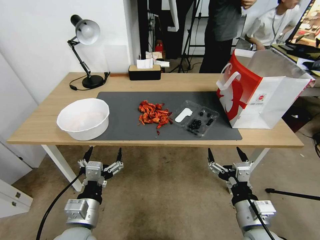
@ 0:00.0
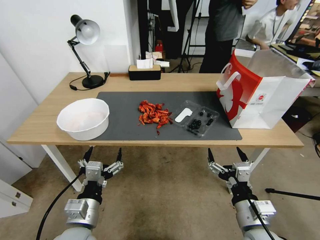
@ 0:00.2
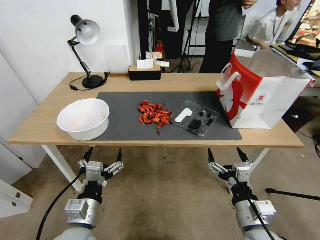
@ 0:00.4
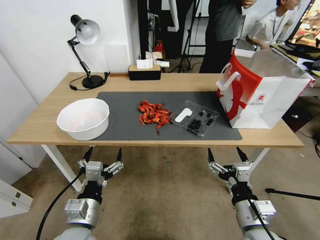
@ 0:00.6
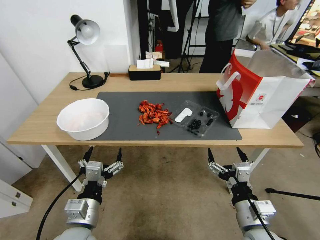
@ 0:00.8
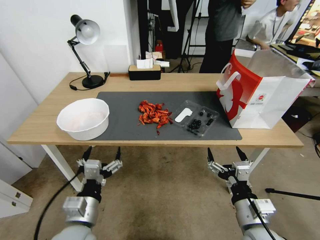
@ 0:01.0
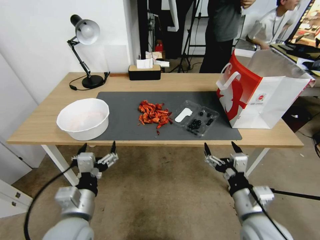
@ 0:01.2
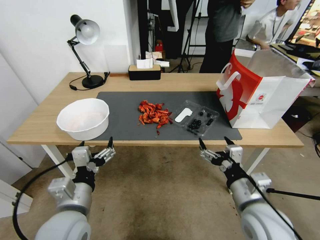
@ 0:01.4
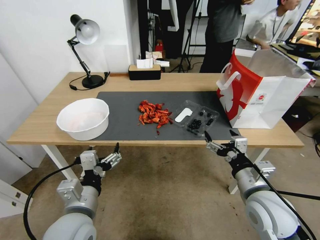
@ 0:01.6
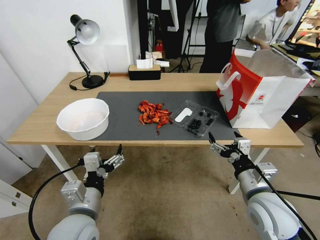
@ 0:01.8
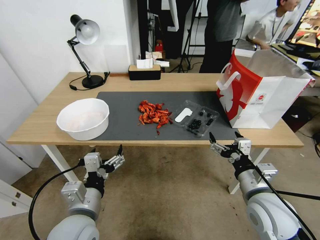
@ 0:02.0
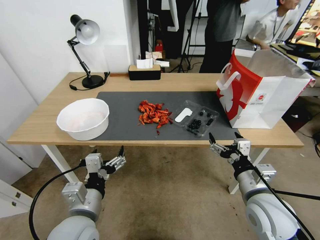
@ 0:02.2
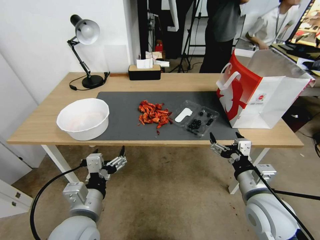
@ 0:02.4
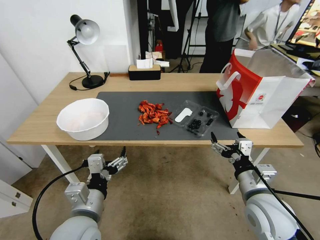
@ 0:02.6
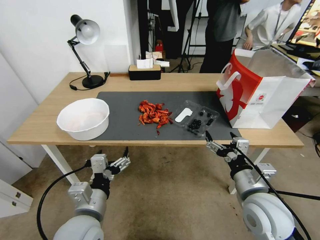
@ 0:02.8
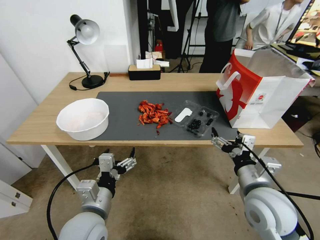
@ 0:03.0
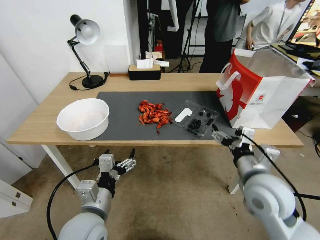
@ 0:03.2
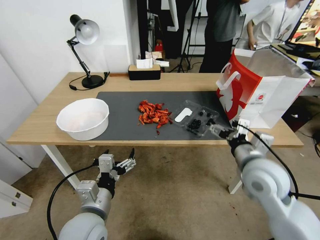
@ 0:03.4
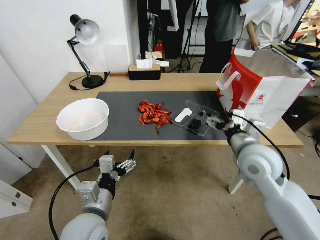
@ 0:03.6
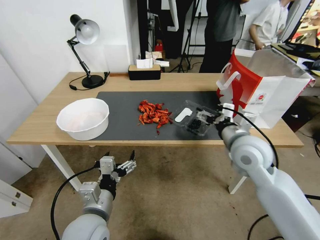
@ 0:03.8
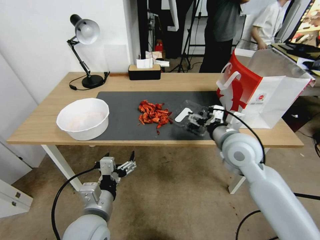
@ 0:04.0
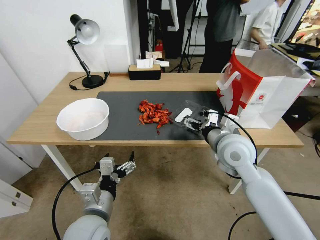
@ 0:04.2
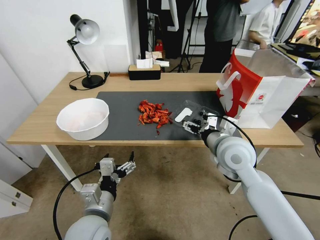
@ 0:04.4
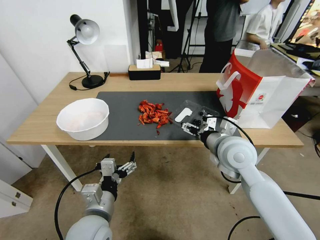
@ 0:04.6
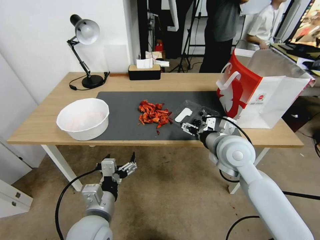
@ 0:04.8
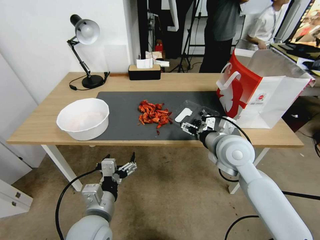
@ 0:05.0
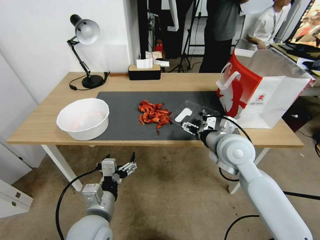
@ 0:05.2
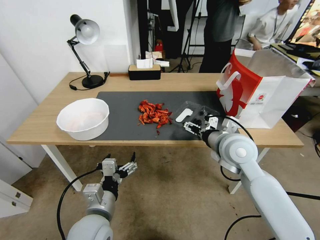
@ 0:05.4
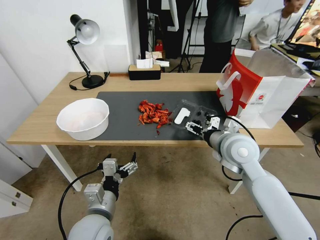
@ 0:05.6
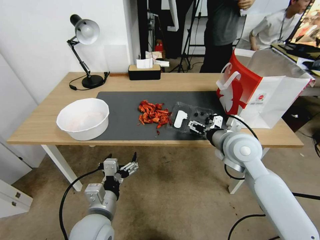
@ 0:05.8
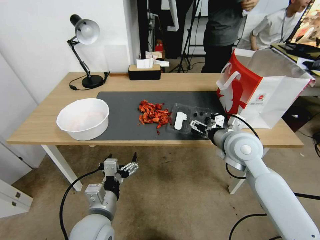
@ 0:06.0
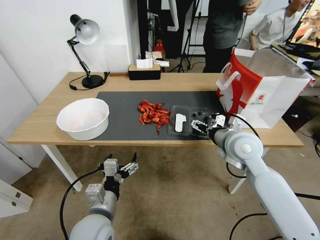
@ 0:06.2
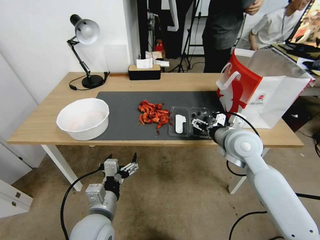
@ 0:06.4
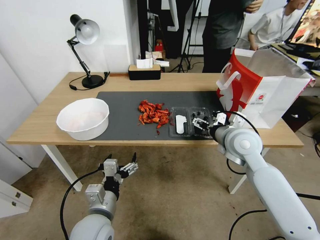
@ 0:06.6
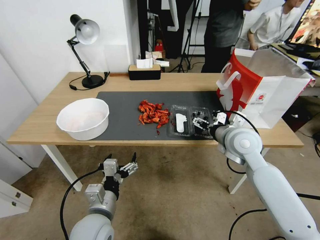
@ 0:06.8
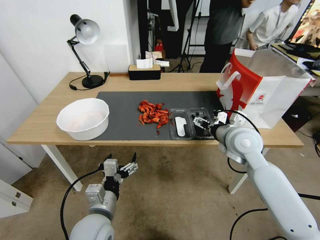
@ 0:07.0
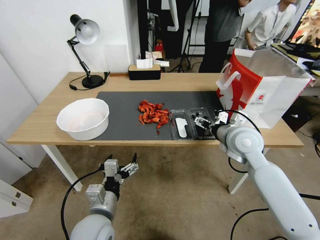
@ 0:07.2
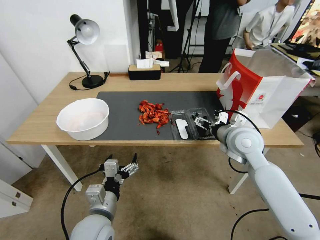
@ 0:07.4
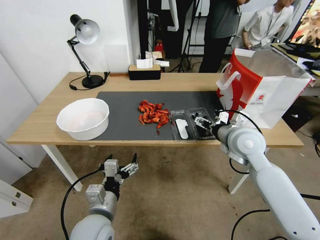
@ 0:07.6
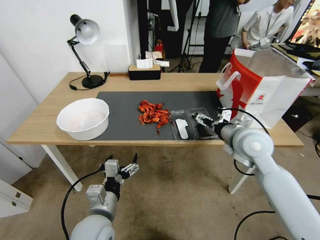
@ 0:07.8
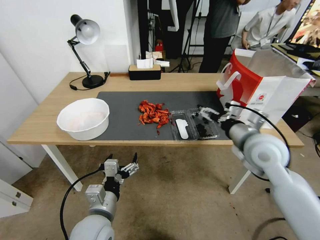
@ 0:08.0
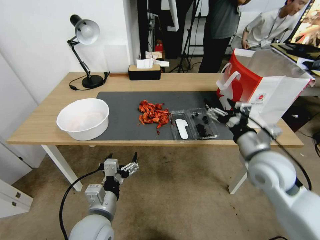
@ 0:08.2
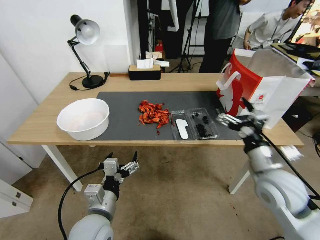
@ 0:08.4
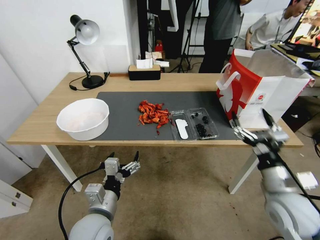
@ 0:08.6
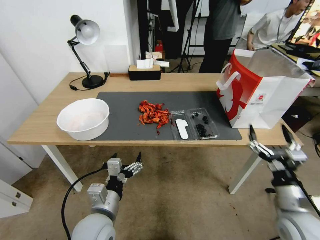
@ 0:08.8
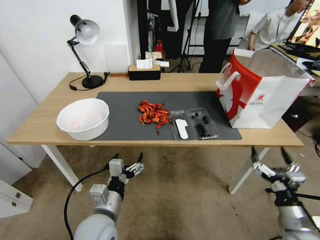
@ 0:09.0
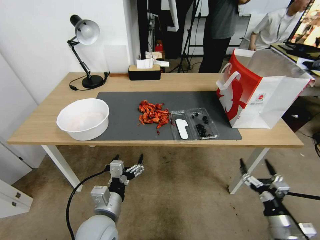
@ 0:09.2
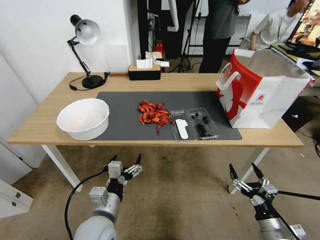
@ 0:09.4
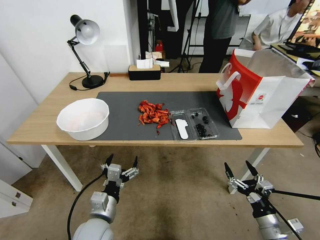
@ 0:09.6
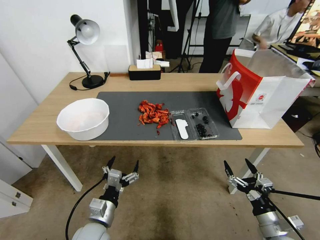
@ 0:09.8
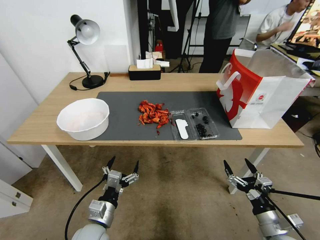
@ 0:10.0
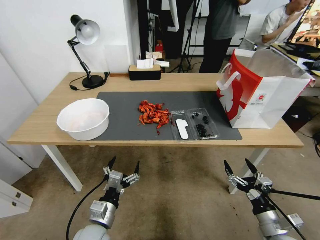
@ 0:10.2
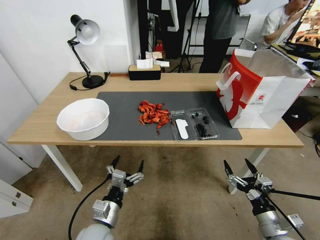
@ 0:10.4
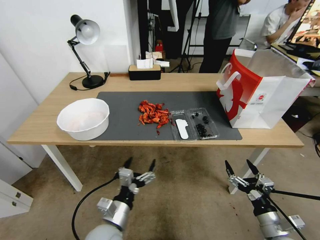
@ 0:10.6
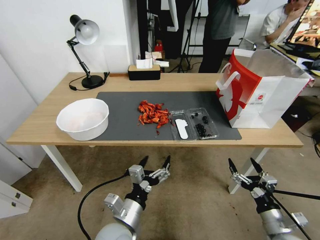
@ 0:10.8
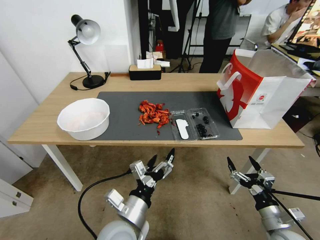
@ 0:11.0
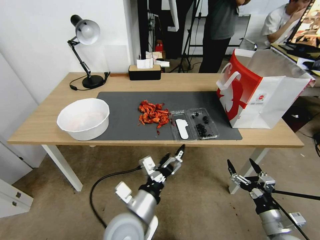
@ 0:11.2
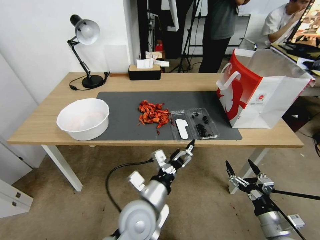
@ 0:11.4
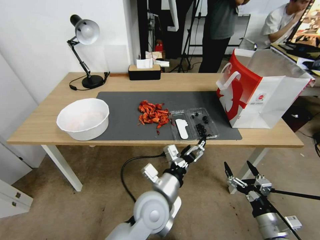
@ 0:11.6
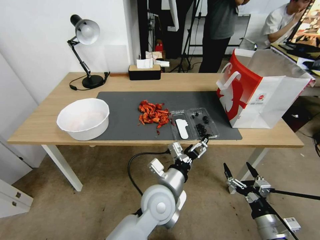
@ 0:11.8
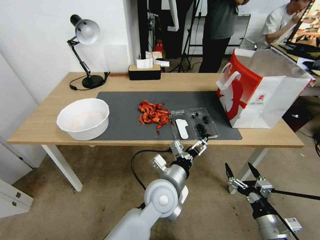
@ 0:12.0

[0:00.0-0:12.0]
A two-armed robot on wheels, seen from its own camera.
0:01.6 to 0:03.0: There are only small adjustments of the grippers.
0:03.0 to 0:04.4: The right gripper is displaced forward, to the left and upward by about 15 cm.
0:04.4 to 0:07.6: The grippers make only small movements.
0:07.6 to 0:09.0: The right gripper is displaced backward, downward and to the right by roughly 30 cm.
0:09.0 to 0:10.4: The right gripper changes place by about 5 cm; the left gripper moves downward, some 5 cm.
0:10.4 to 0:12.0: The left gripper shifts roughly 25 cm to the right, upward and forward.

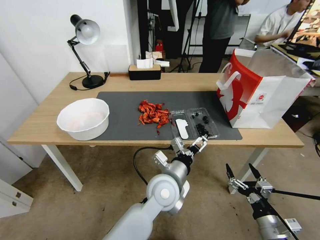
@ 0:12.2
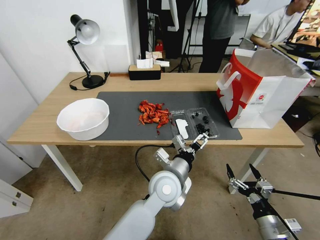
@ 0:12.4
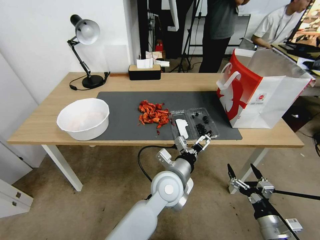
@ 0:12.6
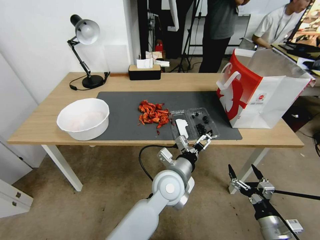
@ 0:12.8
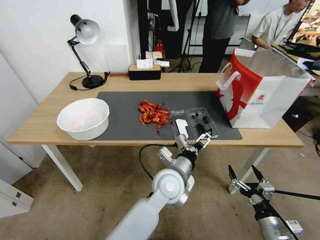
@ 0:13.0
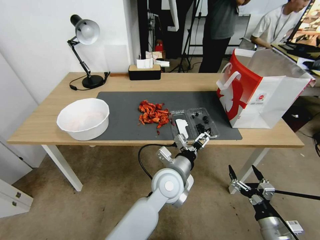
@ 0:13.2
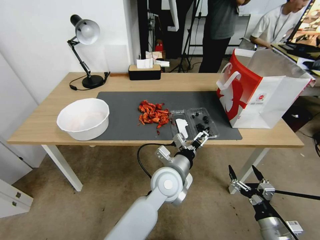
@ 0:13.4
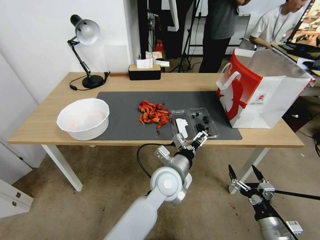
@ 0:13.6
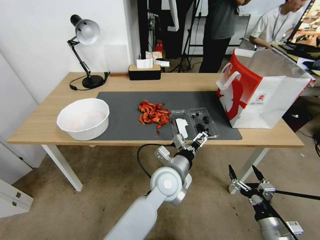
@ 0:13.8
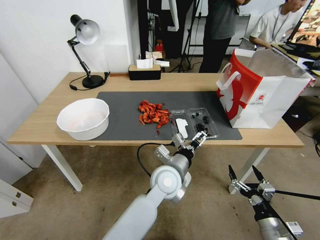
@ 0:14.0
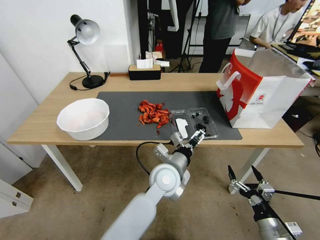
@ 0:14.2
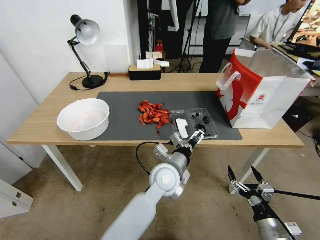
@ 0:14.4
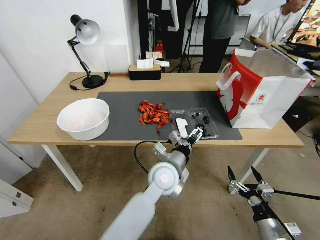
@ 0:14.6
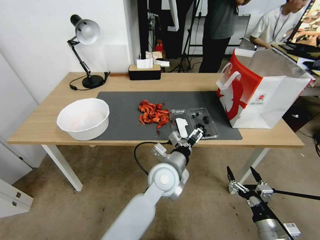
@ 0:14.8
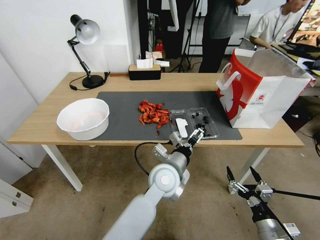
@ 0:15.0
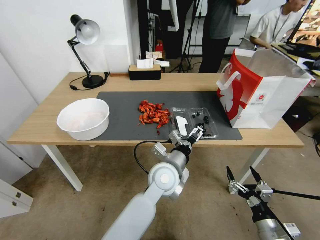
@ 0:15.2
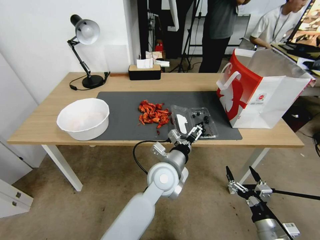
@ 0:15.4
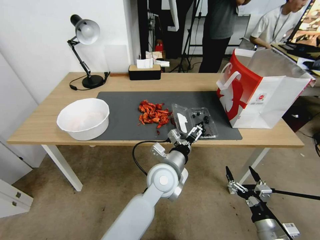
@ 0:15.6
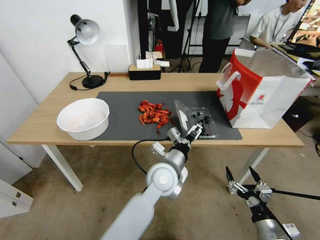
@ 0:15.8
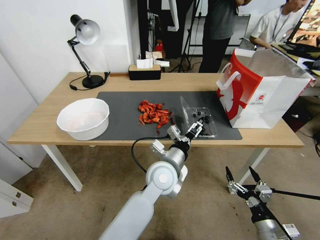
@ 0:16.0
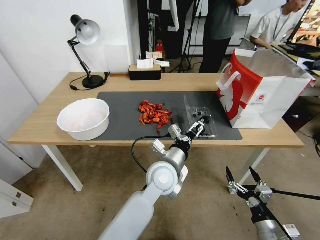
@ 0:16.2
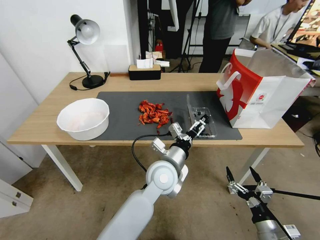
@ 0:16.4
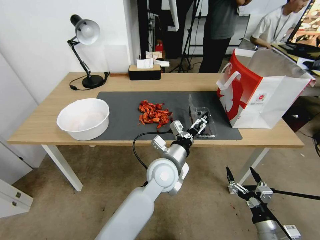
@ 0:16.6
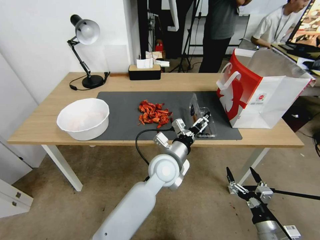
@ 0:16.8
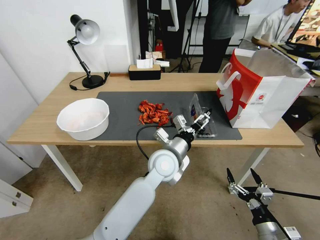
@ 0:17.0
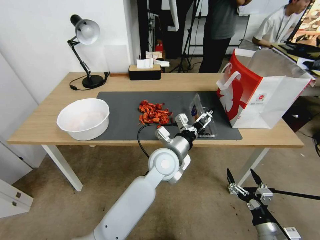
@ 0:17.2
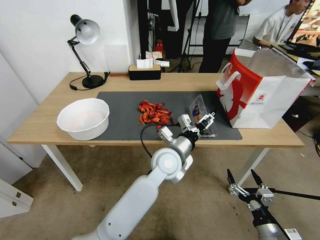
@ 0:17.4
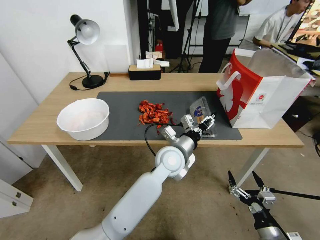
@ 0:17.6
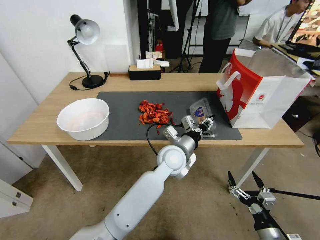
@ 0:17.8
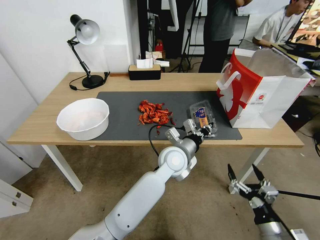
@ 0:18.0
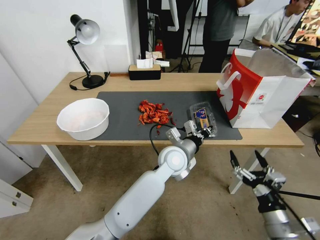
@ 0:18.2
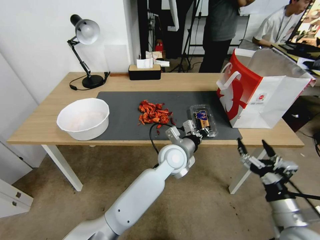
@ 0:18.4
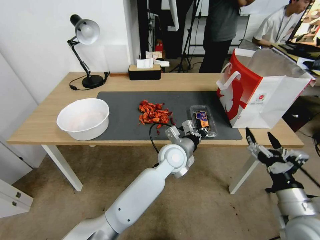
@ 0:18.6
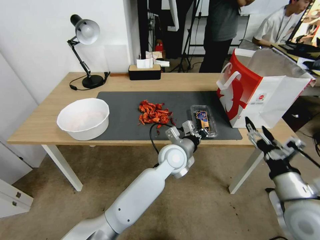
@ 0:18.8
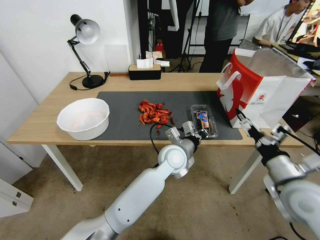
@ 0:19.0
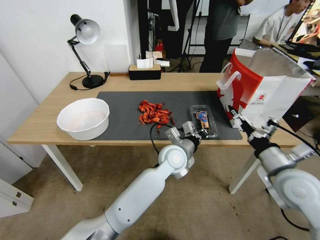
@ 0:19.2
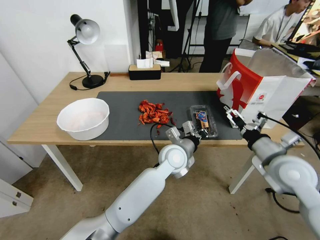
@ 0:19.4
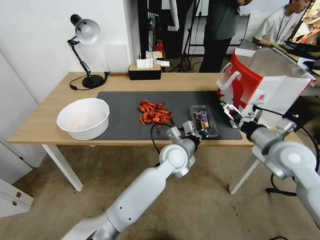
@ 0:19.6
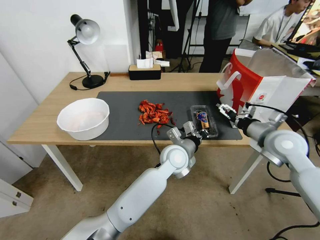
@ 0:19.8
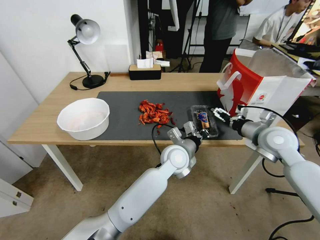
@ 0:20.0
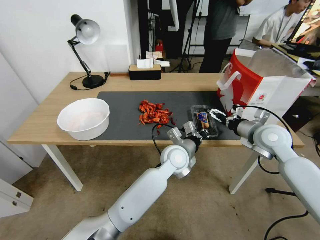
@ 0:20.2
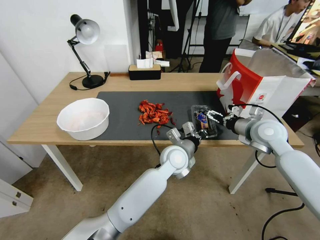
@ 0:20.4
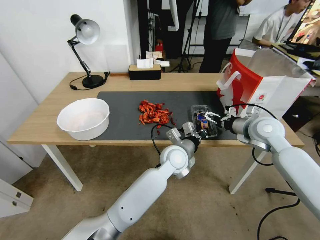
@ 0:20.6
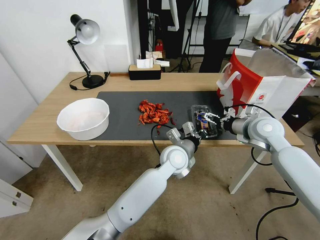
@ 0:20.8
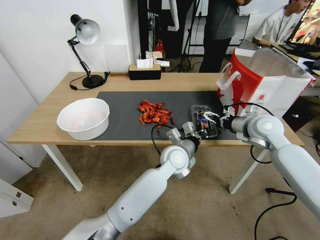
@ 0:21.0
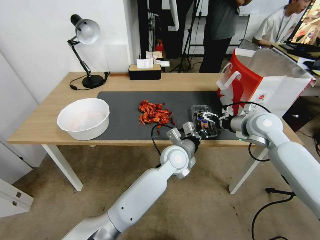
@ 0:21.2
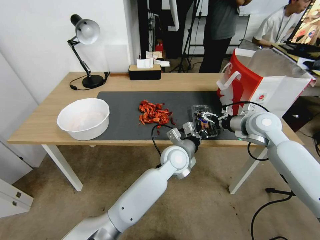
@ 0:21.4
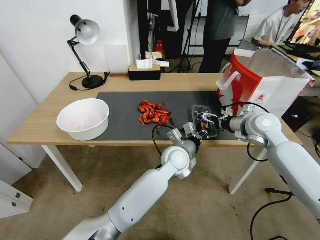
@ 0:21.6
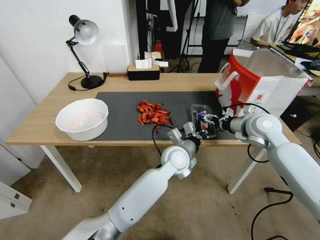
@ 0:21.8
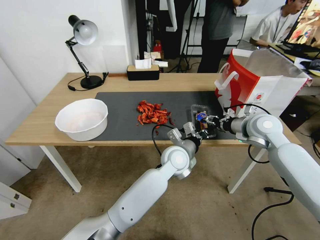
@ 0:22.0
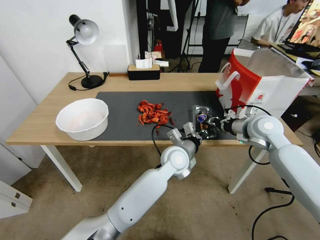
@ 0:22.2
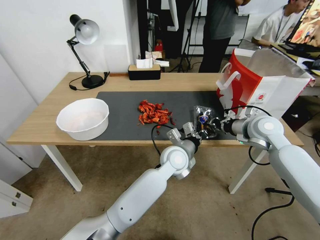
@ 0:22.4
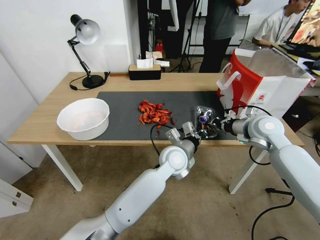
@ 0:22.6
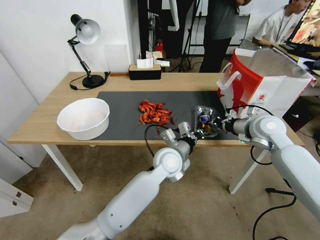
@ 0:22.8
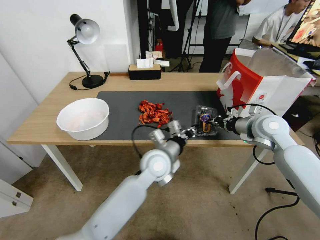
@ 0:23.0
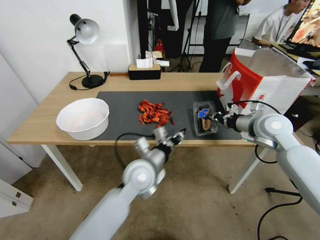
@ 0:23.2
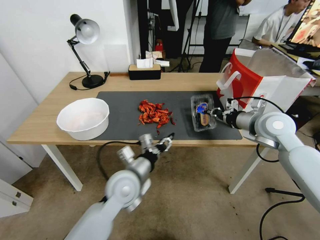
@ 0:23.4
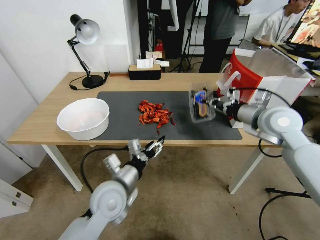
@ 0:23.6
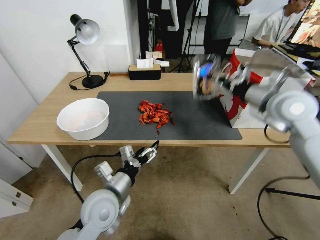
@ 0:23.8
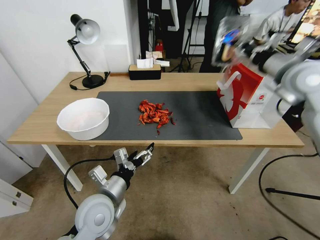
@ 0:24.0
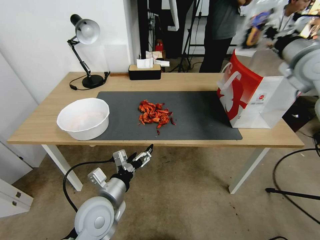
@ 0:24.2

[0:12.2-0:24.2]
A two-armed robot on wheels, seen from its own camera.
0:12.2 to 0:16.6: The grippers move only a little.
0:16.6 to 0:18.2: The right gripper is displaced upward by about 10 cm. The left gripper moves roughly 5 cm, and closes.
0:18.2 to 0:19.8: The right gripper travels forward and upward by approximately 25 cm.
0:19.8 to 0:21.2: The right gripper heads forward, covering some 5 cm.
0:21.2 to 0:22.6: The right gripper closes up.
0:22.6 to 0:24.2: The right gripper travels upward by approximately 20 cm; the left gripper shifts roughly 25 cm to the left and backward, and opens up.
